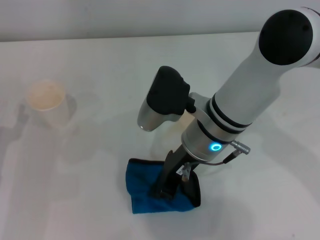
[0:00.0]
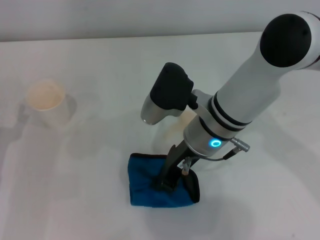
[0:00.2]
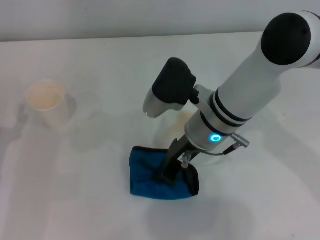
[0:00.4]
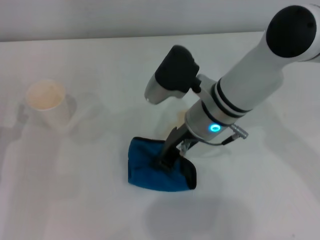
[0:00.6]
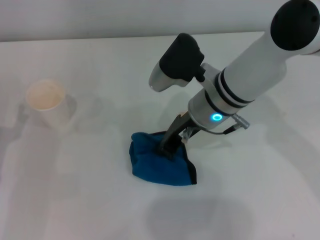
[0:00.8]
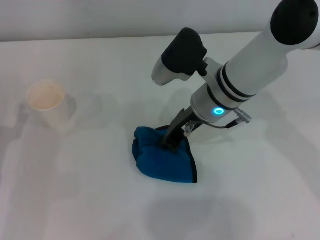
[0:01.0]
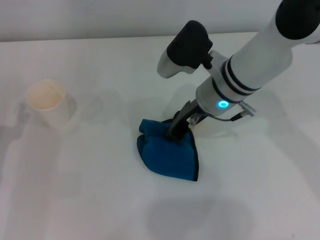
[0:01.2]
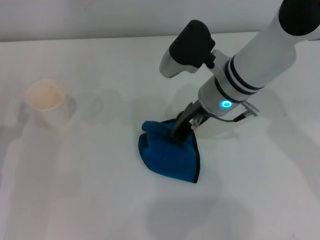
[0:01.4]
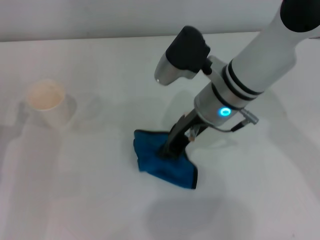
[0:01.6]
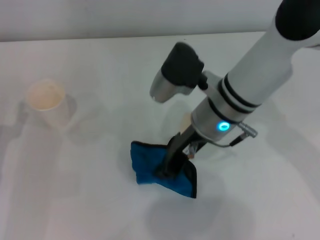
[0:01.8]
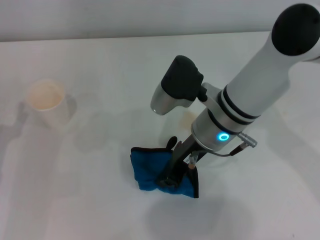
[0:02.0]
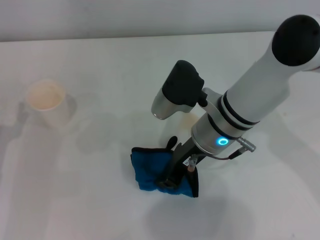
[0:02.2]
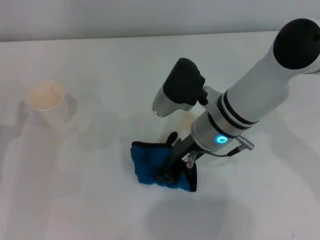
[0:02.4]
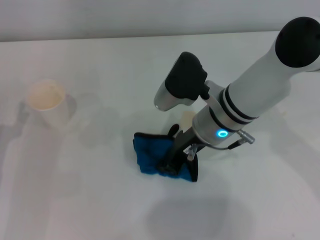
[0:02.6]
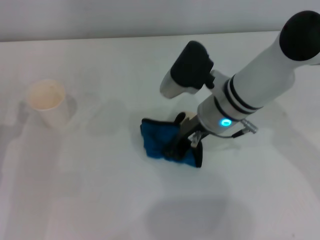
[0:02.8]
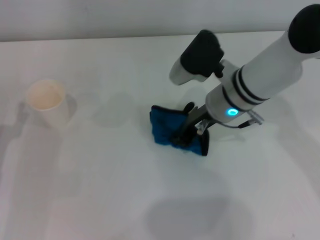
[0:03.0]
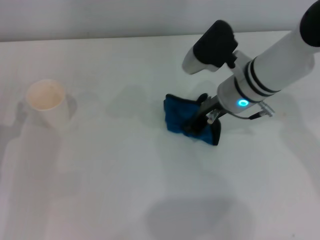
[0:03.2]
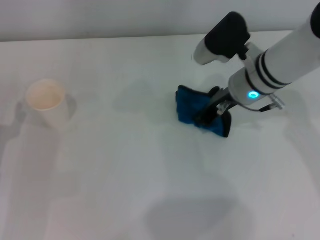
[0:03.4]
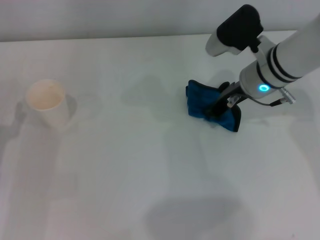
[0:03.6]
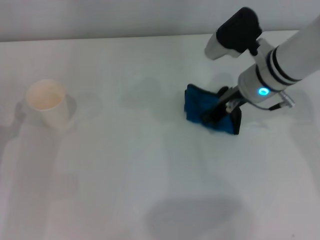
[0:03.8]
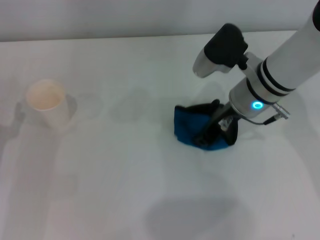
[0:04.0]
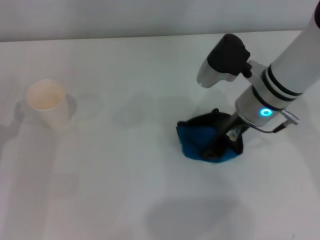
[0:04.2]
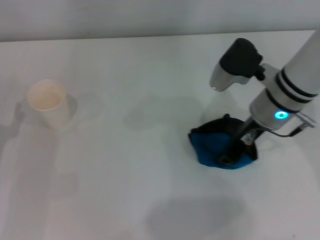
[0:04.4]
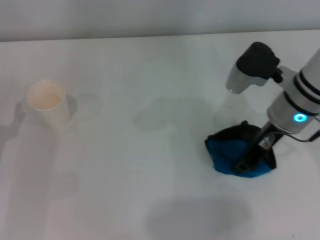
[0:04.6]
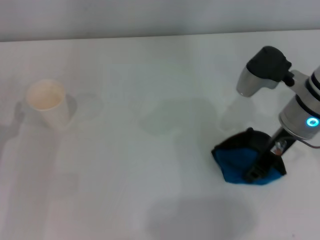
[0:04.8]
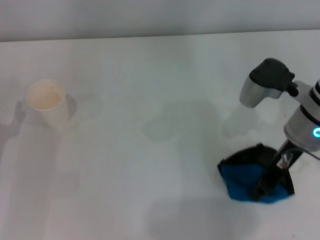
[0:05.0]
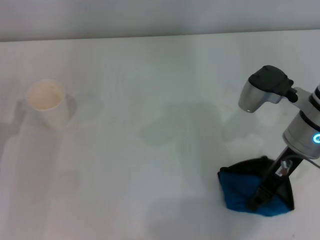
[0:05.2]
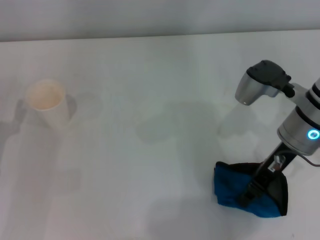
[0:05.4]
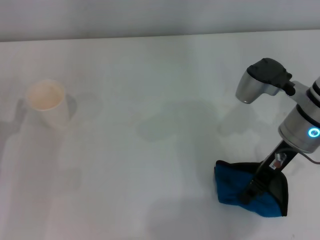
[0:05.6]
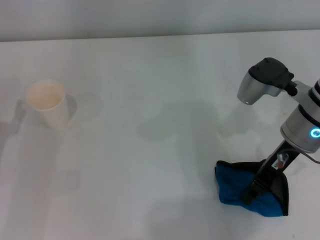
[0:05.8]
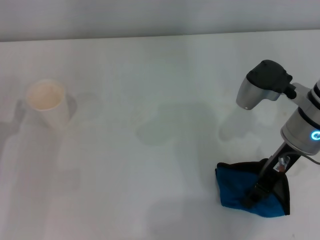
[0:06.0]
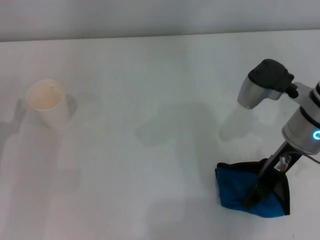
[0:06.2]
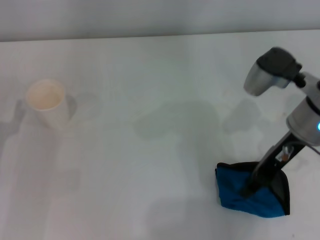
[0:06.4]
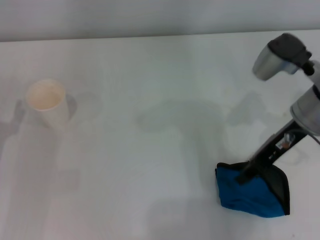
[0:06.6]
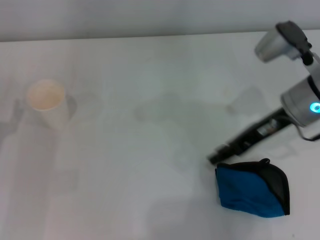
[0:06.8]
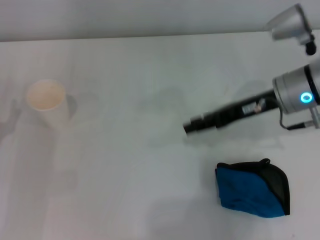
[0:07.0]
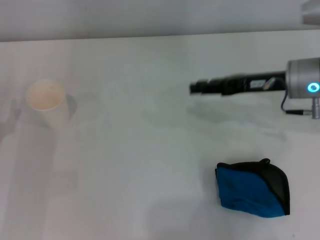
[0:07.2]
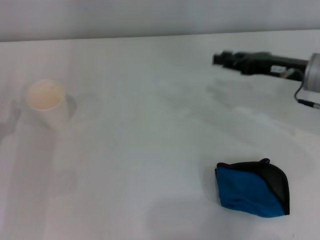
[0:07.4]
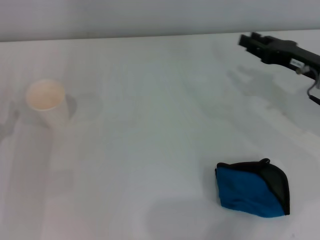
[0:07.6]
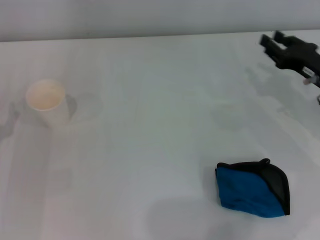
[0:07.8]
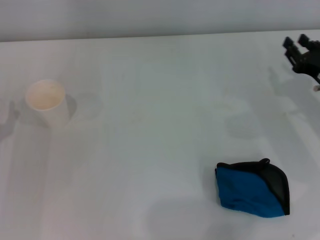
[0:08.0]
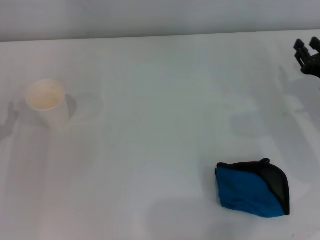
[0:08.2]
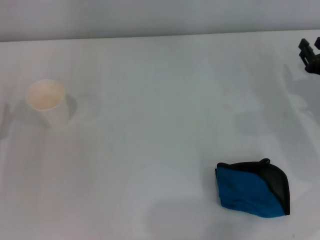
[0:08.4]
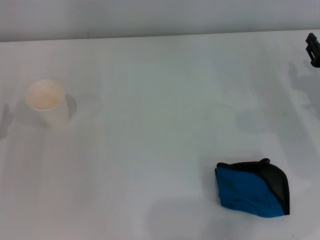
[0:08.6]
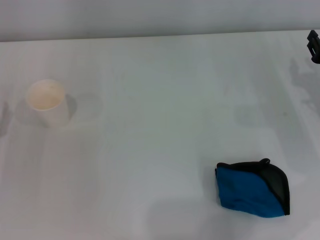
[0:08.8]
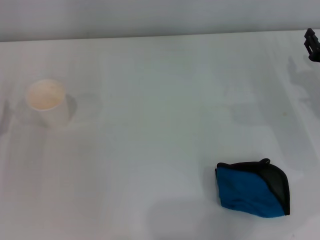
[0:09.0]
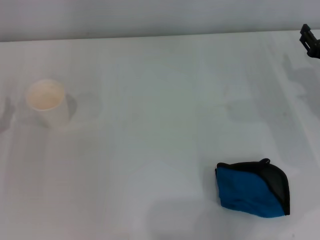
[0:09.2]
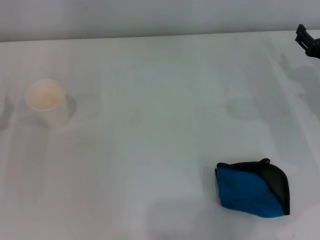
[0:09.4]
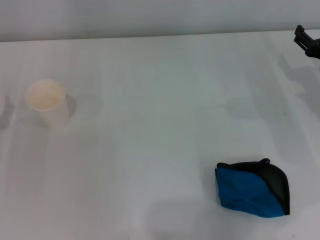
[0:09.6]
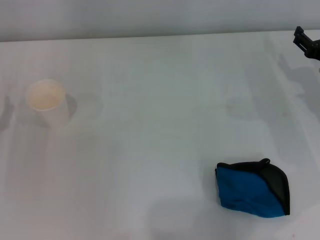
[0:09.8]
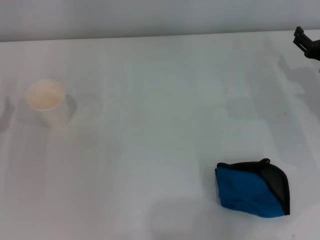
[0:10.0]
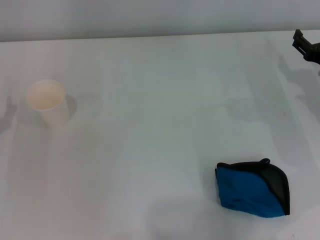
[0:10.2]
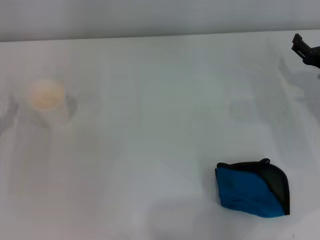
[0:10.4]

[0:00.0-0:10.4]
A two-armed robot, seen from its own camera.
Step, 0:00.0 to 0:05.0: Wipe the stains off the table with the right gripper.
Step, 0:05.2 to 0:06.4: Place the rag on the table with the right gripper.
0:00.0 to 0:01.4: The right gripper goes some 5 cm forward.
0:01.4 to 0:03.0: There are only small adjustments of the grippers.
0:03.0 to 0:04.4: The right gripper shifts about 5 cm to the right.
0:04.4 to 0:06.0: There are only small adjustments of the grippers.
0:06.0 to 0:07.4: The right gripper goes about 5 cm to the right, and opens.
0:07.4 to 0:09.0: The right gripper shifts approximately 10 cm to the right and downward.
0:09.0 to 0:10.4: The right gripper opens its fingers.
